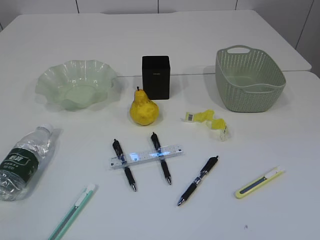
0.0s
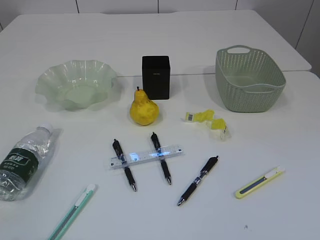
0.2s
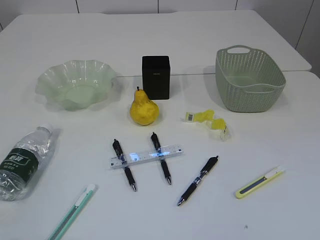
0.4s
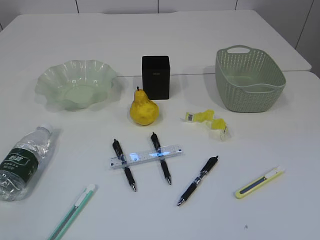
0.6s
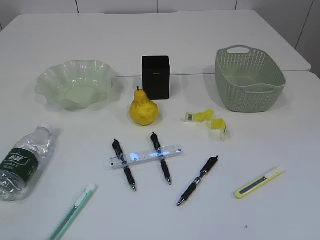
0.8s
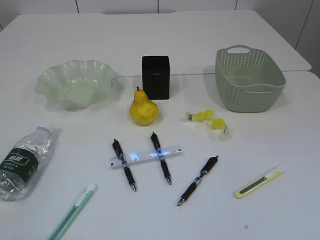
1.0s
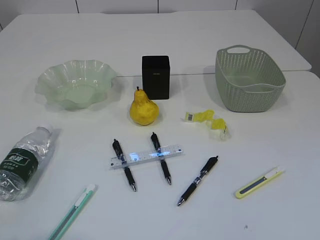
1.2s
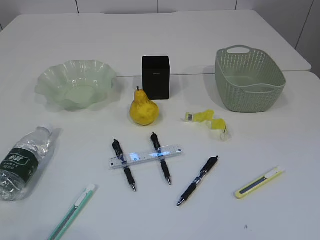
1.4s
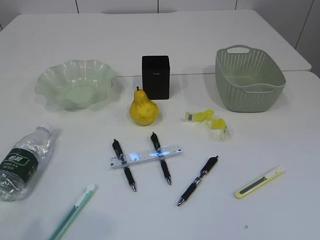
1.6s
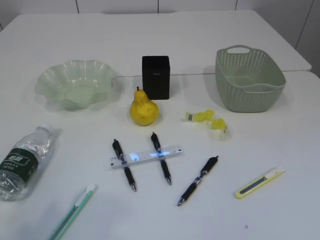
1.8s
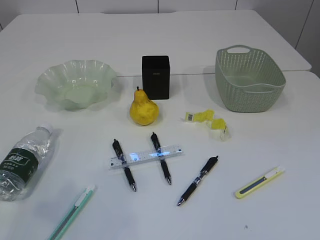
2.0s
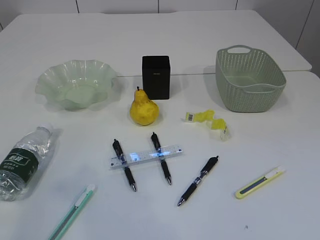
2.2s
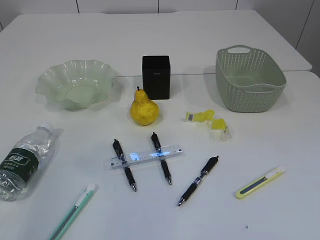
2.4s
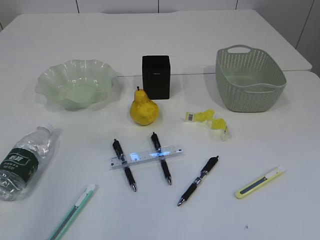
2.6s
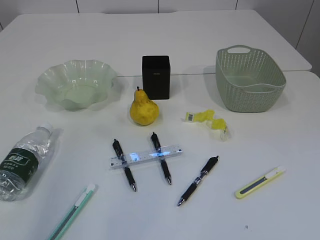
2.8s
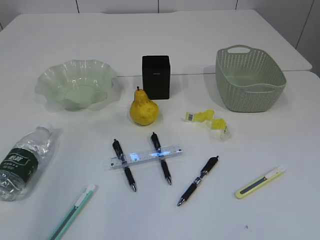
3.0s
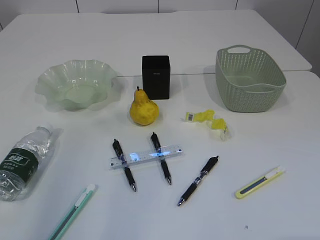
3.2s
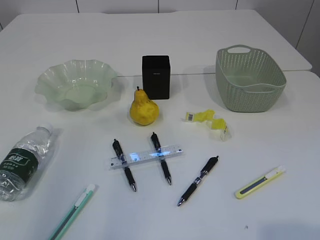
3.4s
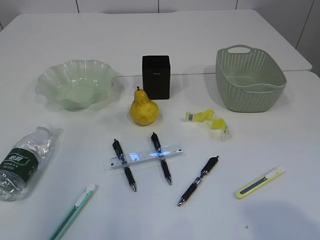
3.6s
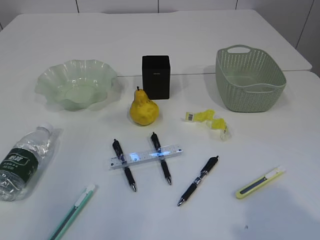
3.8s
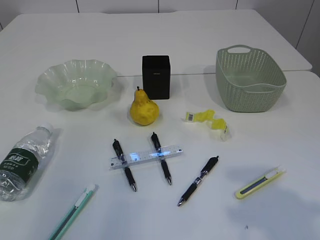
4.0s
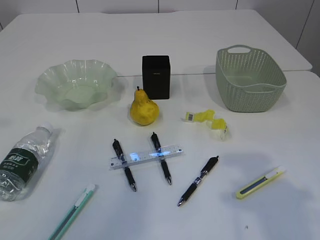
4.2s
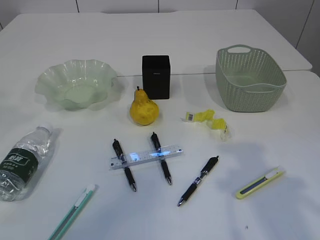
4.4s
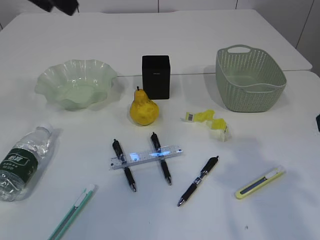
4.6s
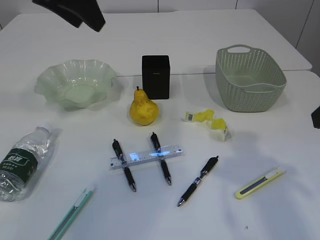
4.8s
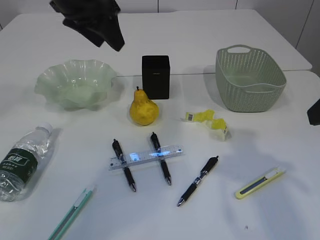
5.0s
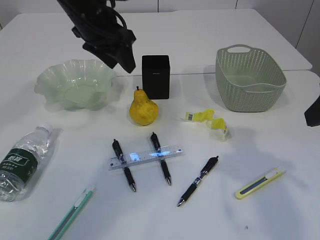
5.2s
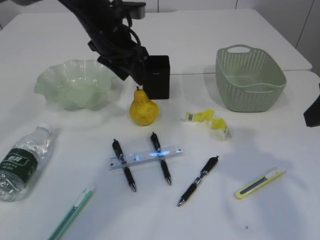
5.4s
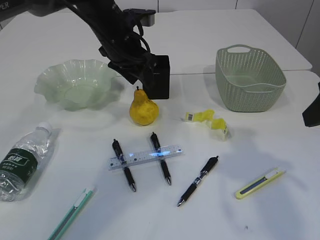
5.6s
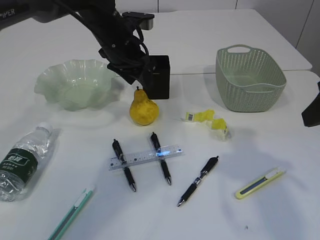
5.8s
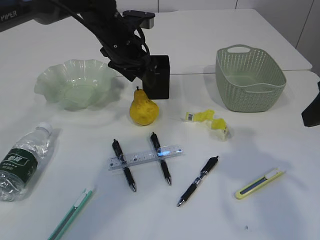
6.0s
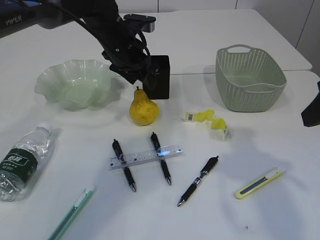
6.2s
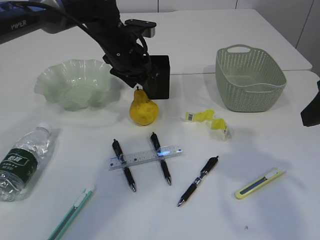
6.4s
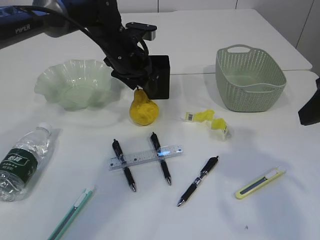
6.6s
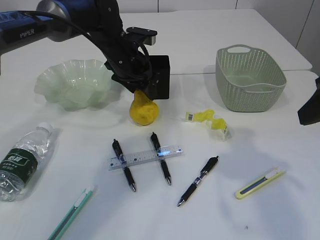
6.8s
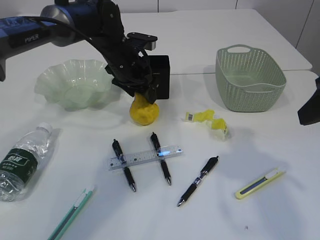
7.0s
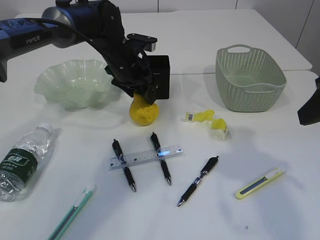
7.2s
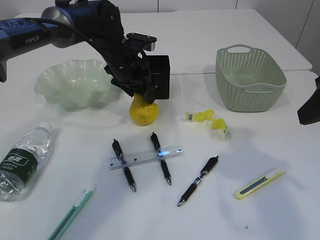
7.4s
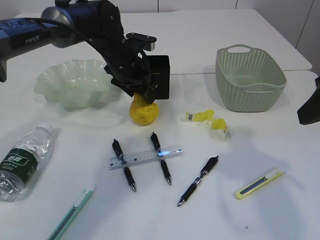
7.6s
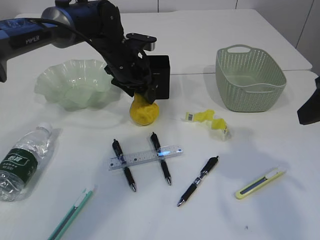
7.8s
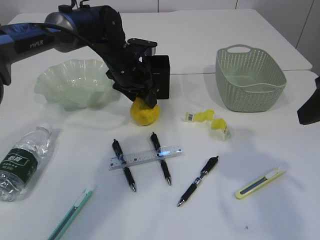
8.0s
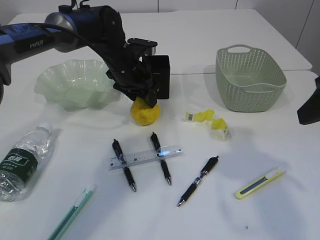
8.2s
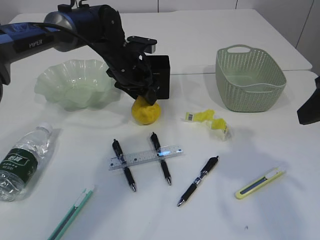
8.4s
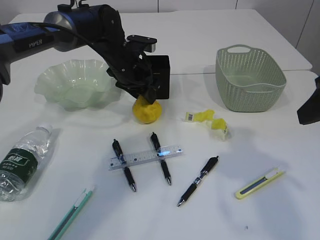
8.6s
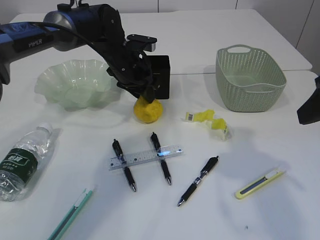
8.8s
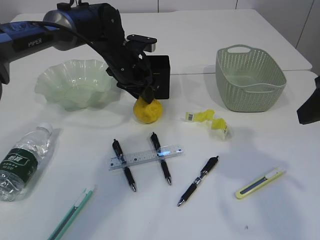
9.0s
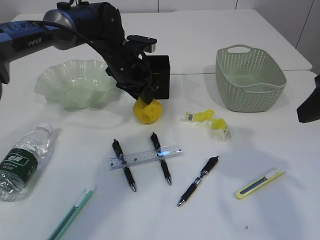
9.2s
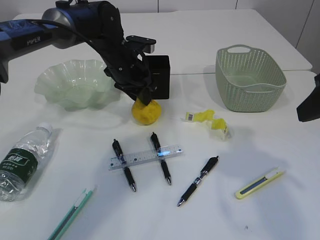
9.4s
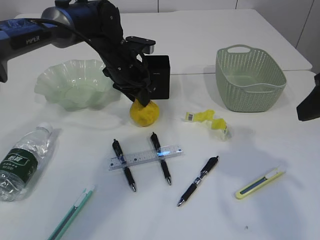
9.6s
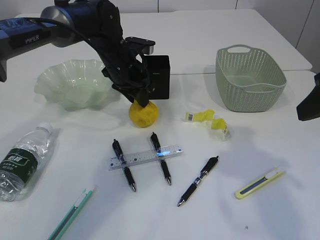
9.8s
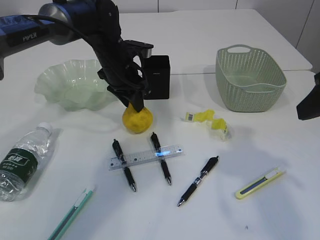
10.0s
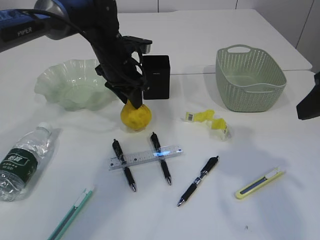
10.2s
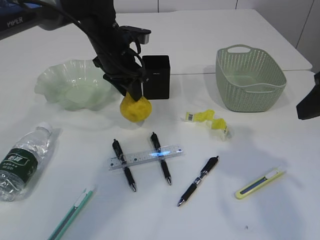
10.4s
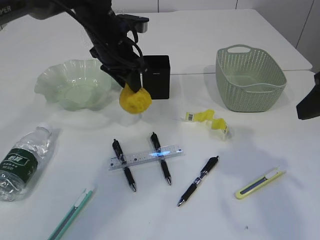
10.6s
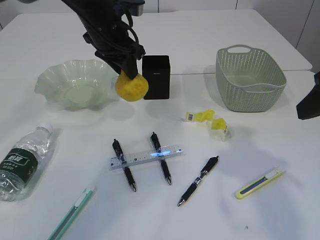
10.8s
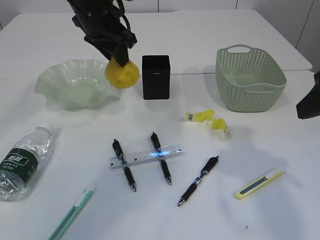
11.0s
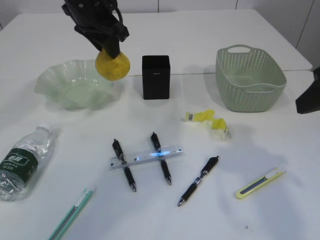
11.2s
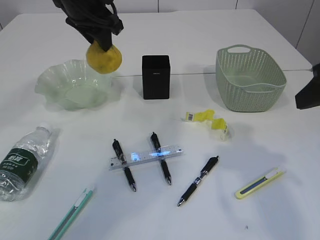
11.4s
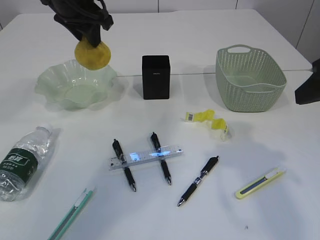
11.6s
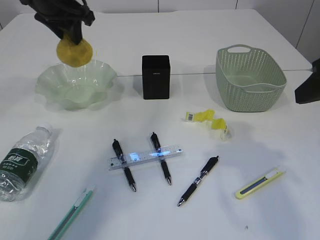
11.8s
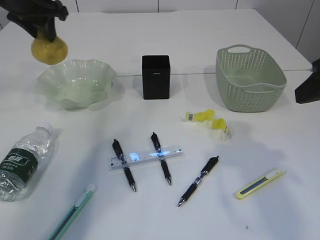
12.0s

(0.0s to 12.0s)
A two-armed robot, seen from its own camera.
3.0s - 4.4s: The left gripper moves forward and to the right, roughly 10 cm; the right gripper shifts roughly 20 cm forward.
4.4s - 6.0s: The left gripper travels downward, forward and to the right by approximately 30 cm.
6.0s - 7.6s: The left gripper heads downward, covering approximately 5 cm.
7.6s - 9.0s: The left gripper closes its fingers.
9.0s - 10.4s: The grippers stay close to where they were, moving slightly.
10.4s - 12.0s: The left gripper goes approximately 20 cm to the left and upward.

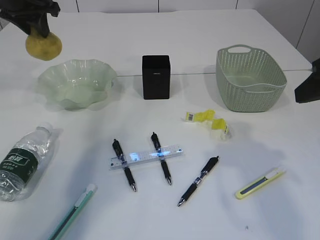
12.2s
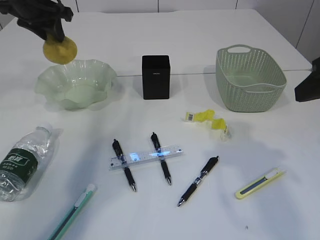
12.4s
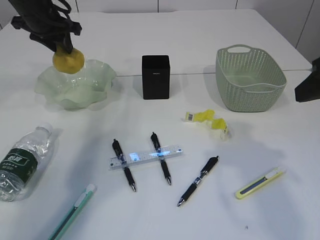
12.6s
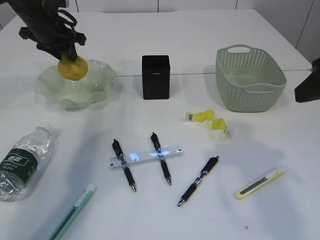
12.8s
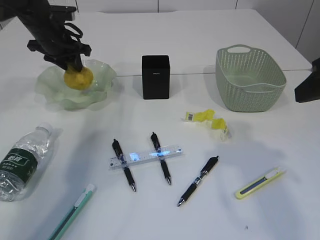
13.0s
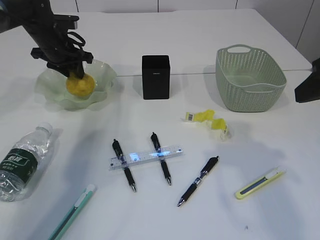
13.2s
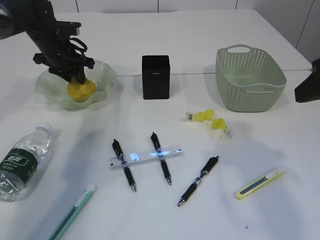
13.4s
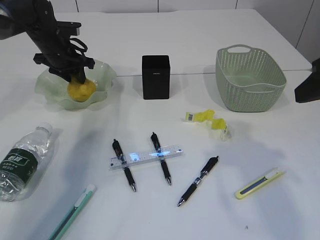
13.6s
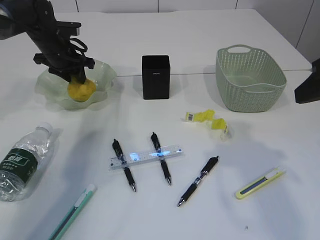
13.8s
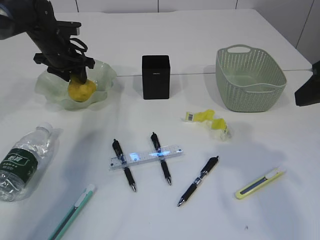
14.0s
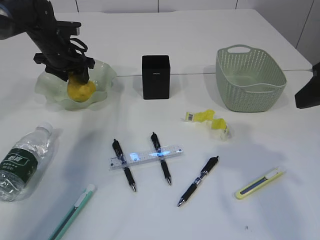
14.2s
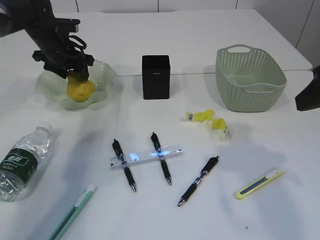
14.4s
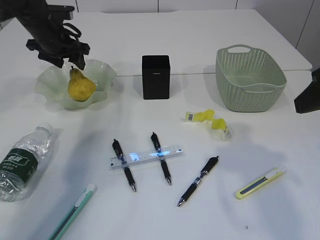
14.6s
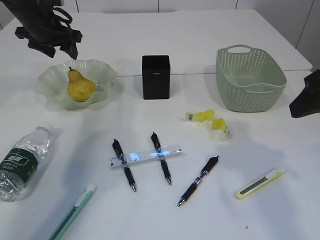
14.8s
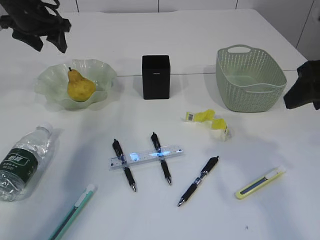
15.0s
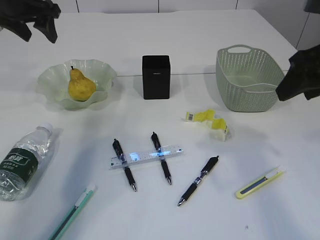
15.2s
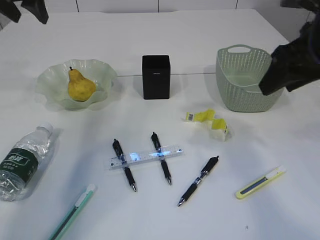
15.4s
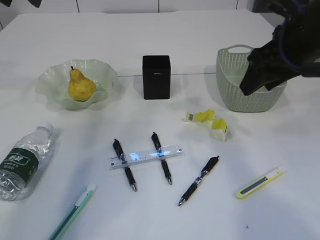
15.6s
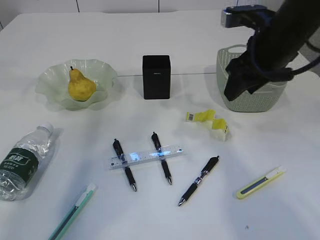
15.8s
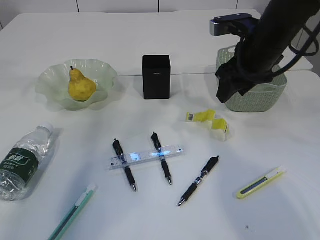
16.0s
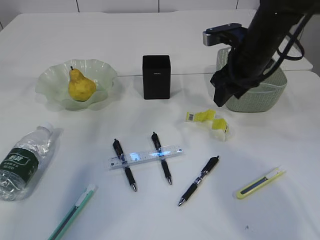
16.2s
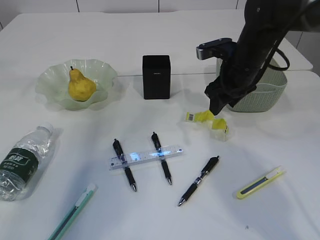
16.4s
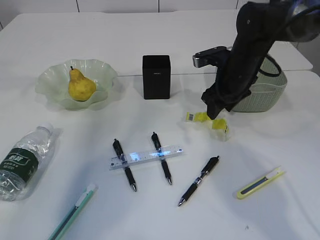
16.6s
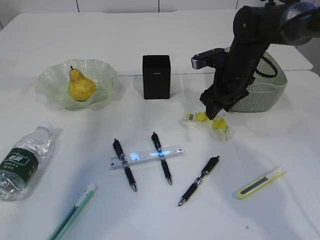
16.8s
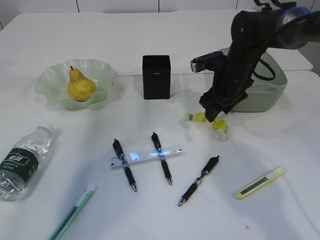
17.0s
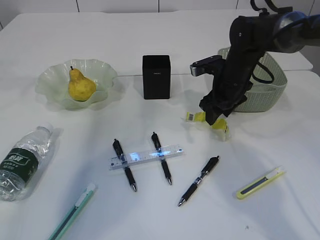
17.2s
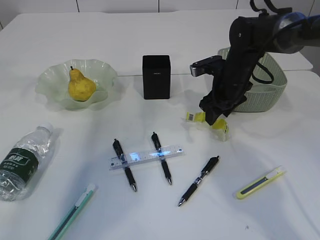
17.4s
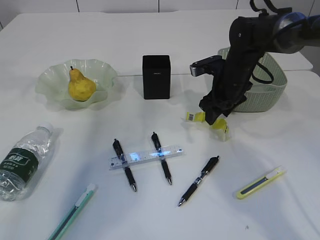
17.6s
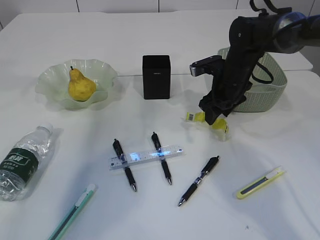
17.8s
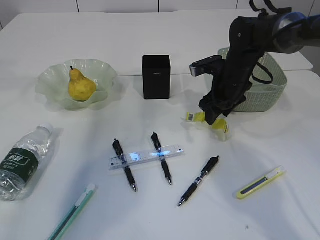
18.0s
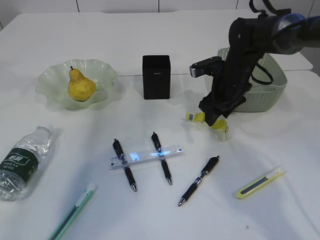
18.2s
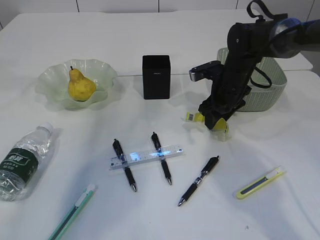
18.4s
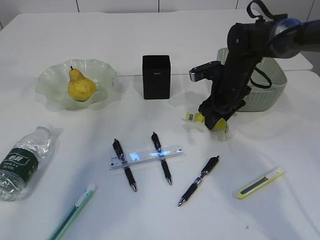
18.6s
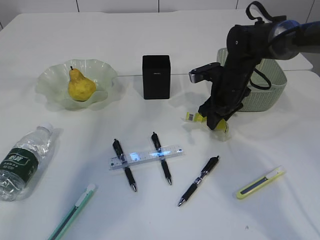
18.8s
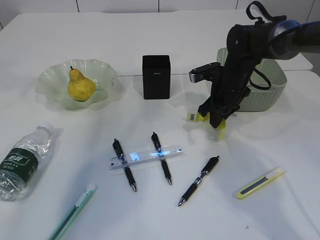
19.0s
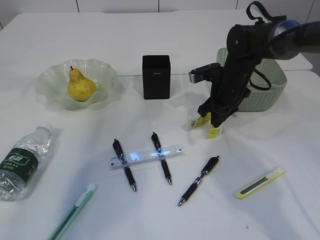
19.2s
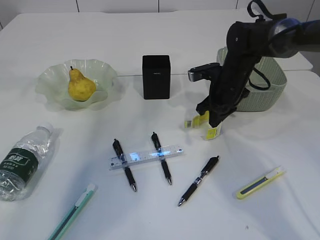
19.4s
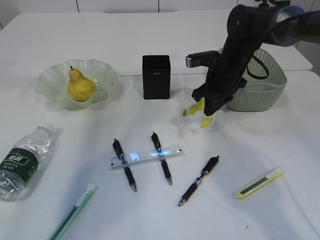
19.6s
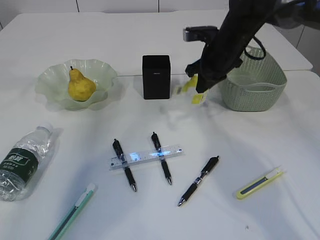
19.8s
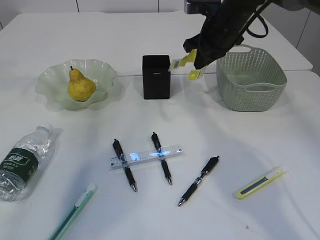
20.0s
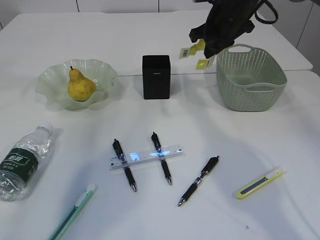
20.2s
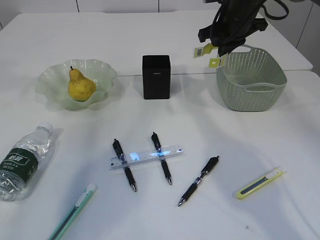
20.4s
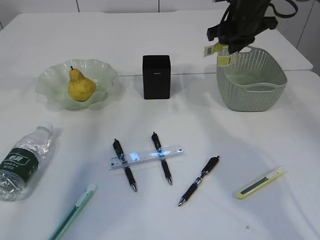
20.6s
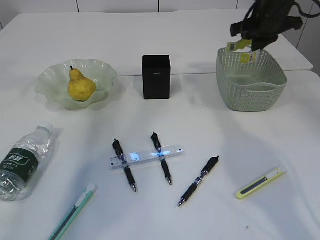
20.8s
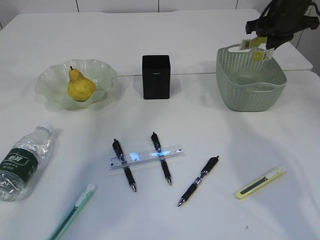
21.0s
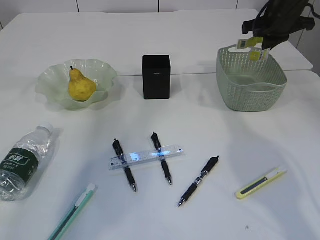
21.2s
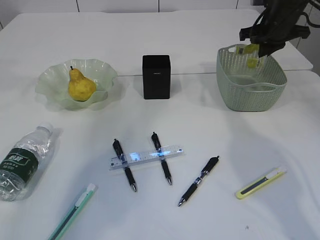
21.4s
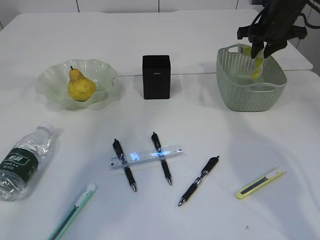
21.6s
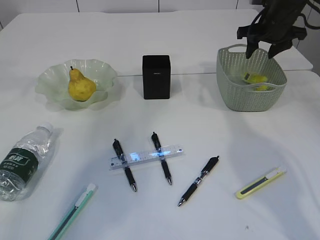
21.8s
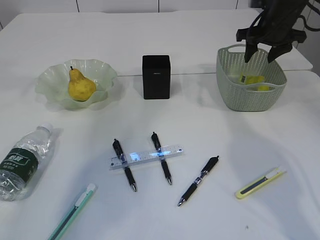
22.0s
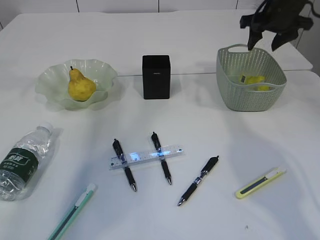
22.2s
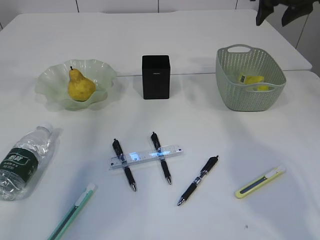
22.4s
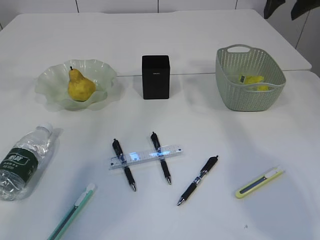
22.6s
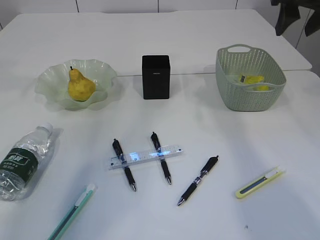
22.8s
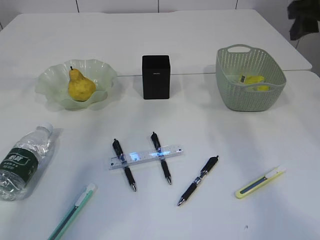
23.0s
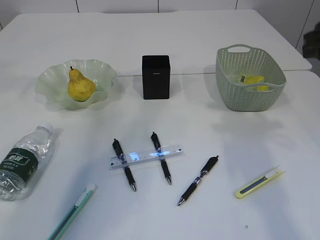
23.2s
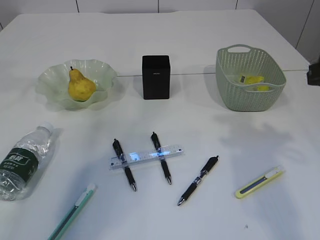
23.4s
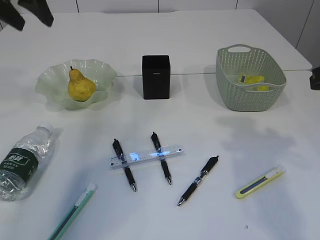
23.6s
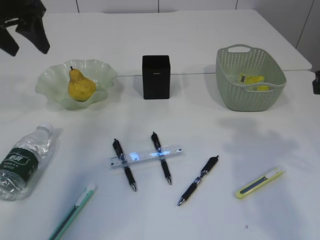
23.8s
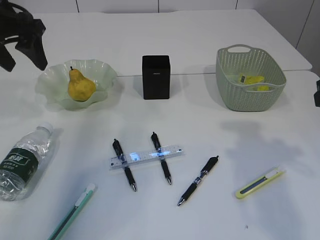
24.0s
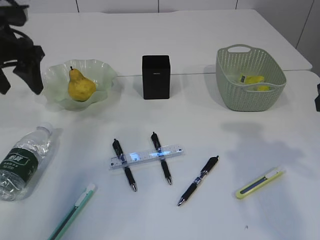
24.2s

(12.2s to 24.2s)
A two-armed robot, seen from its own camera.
Step, 12.2s - 15.0s: Place the pear in the plate.
Step, 15.2s - 19.8s: Pick up the plastic.
Step, 20.0s - 22.2s: Place the plastic in the basket.
12.2s - 13.8s: The left gripper heads downward and forward, covering some 15 cm.
13.8s - 15.2s: The left gripper moves upward and backward, roughly 15 cm, and opens.
15.2s - 16.6s: The left gripper moves upward and backward, approximately 10 cm. The right gripper moves forward, downward and to the left, about 20 cm.
16.6s - 18.2s: There are only small adjustments of the grippers.
18.2s - 19.8s: The right gripper moves upward, some 5 cm, and closes up.
19.8s - 21.2s: The right gripper shifts some 15 cm to the right and upward.
21.2s - 22.6s: The right gripper travels upward and backward by some 10 cm, and opens up.
22.6s - 24.2s: The right gripper travels backward by about 20 cm, while the left gripper is displaced downward by roughly 15 cm.
